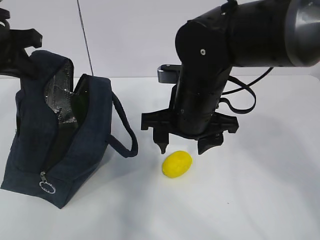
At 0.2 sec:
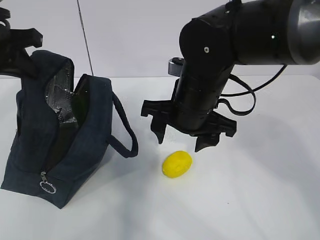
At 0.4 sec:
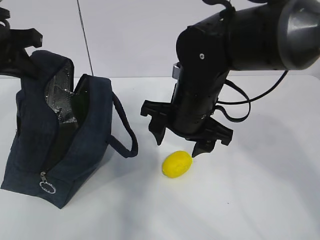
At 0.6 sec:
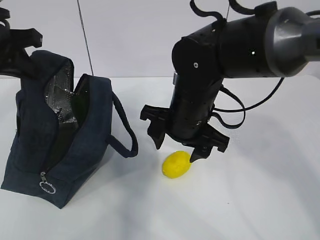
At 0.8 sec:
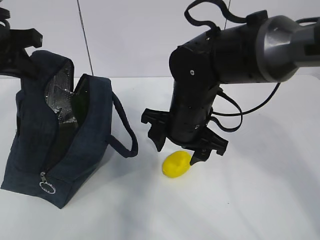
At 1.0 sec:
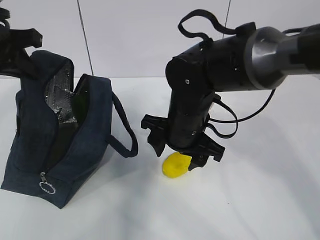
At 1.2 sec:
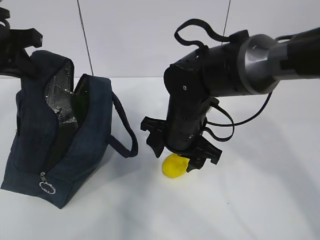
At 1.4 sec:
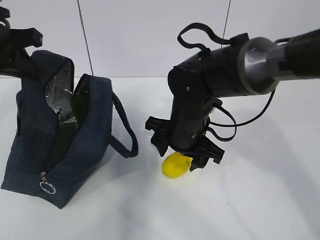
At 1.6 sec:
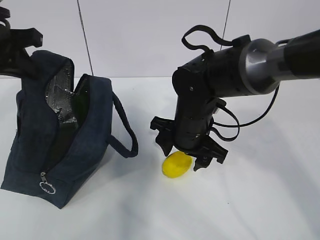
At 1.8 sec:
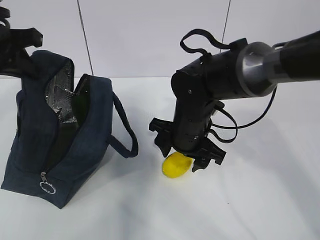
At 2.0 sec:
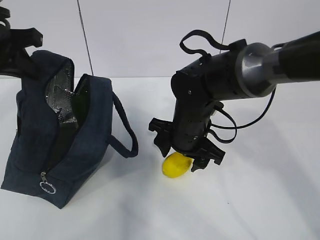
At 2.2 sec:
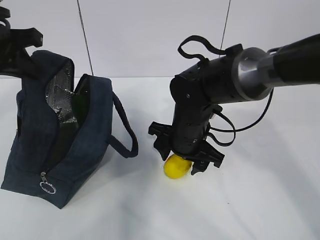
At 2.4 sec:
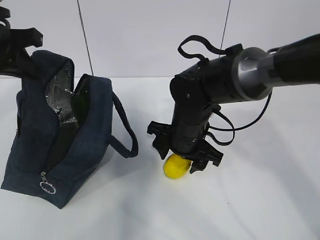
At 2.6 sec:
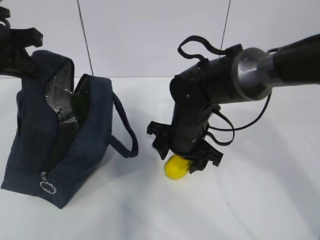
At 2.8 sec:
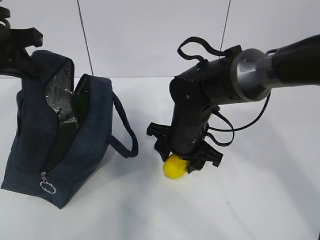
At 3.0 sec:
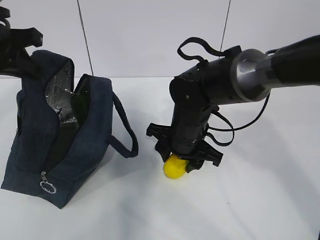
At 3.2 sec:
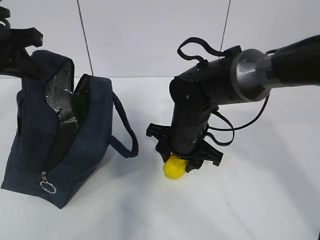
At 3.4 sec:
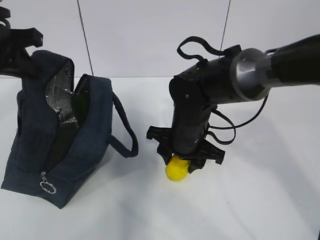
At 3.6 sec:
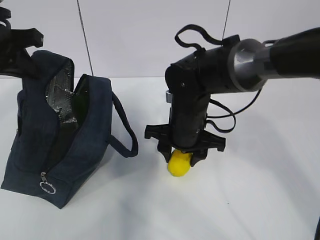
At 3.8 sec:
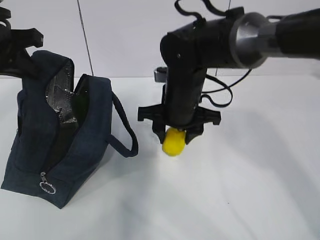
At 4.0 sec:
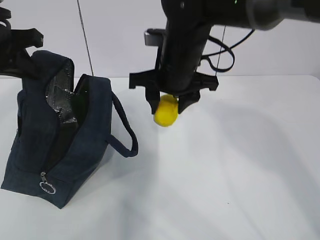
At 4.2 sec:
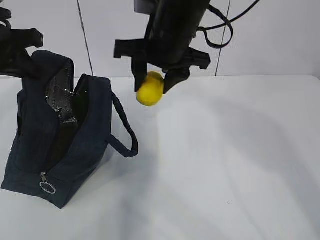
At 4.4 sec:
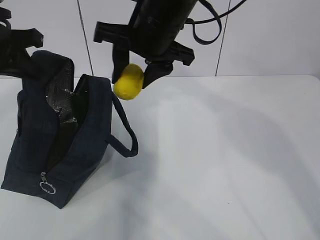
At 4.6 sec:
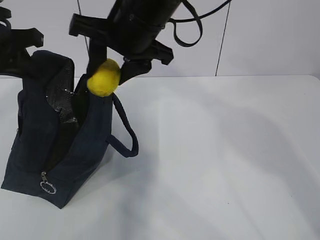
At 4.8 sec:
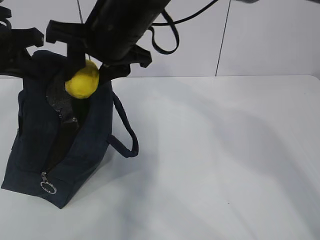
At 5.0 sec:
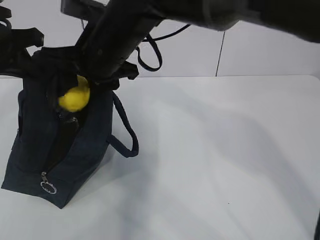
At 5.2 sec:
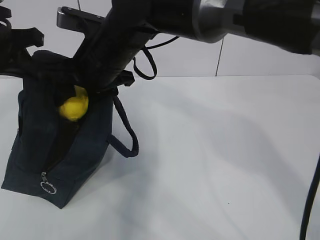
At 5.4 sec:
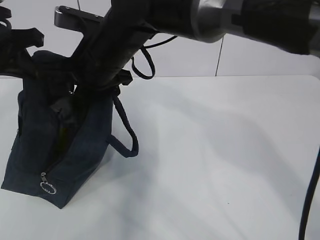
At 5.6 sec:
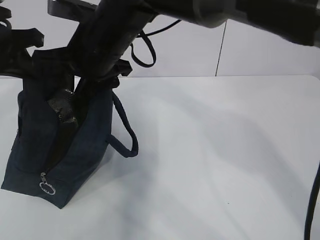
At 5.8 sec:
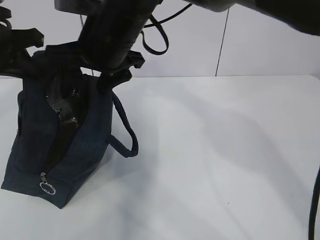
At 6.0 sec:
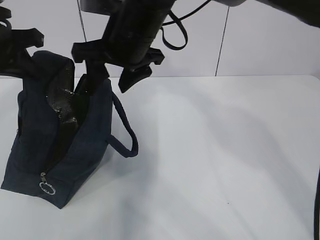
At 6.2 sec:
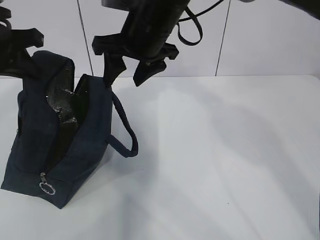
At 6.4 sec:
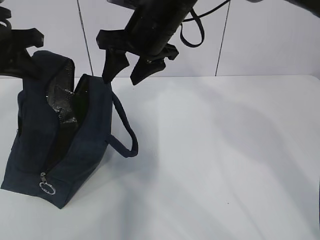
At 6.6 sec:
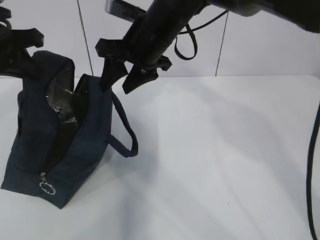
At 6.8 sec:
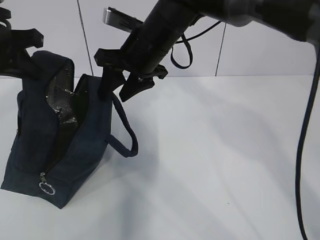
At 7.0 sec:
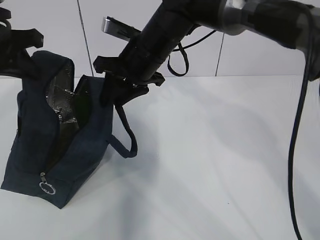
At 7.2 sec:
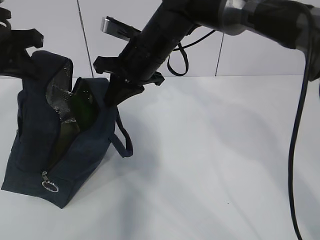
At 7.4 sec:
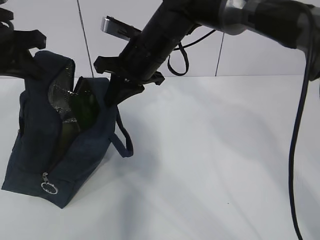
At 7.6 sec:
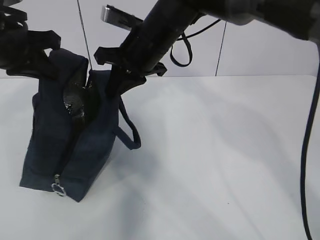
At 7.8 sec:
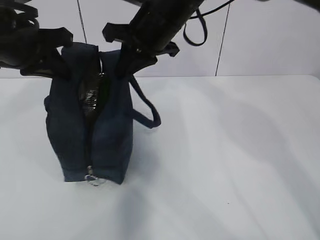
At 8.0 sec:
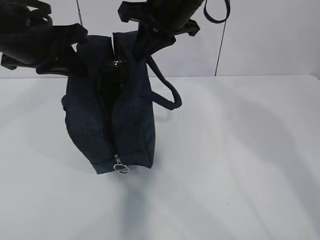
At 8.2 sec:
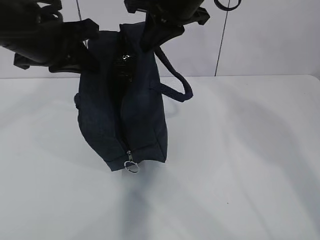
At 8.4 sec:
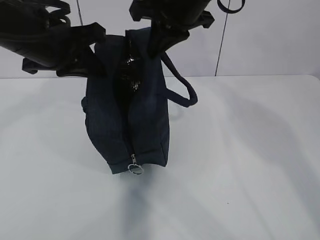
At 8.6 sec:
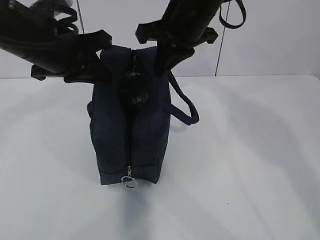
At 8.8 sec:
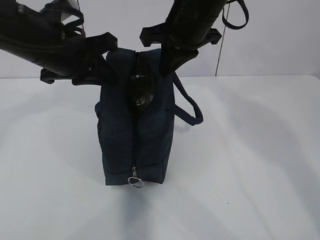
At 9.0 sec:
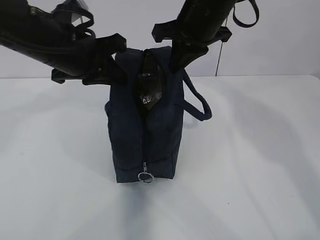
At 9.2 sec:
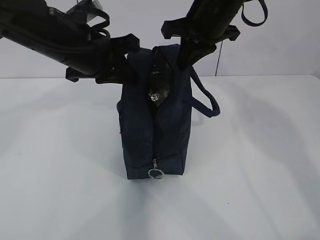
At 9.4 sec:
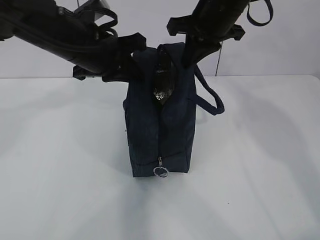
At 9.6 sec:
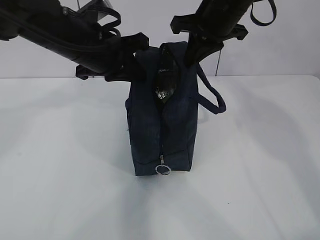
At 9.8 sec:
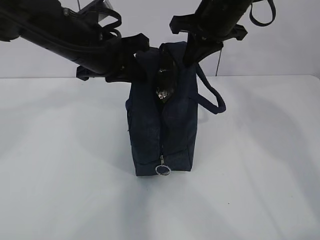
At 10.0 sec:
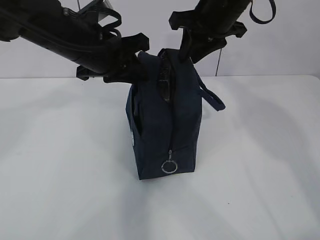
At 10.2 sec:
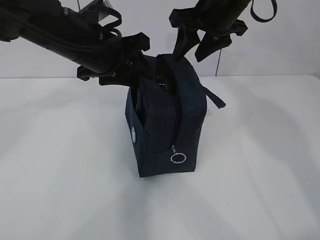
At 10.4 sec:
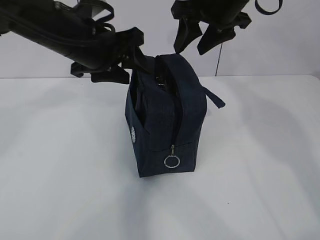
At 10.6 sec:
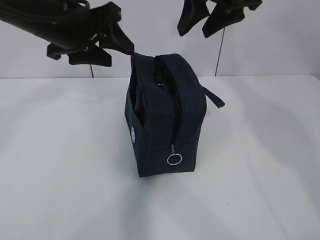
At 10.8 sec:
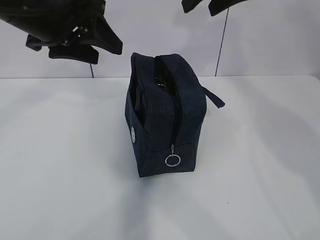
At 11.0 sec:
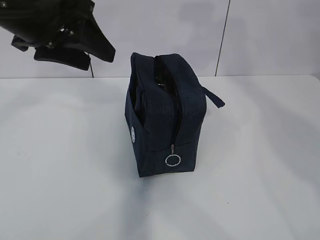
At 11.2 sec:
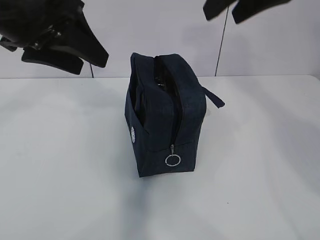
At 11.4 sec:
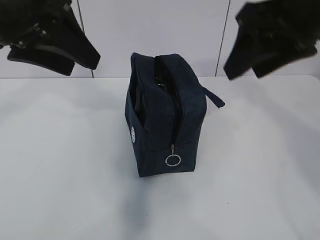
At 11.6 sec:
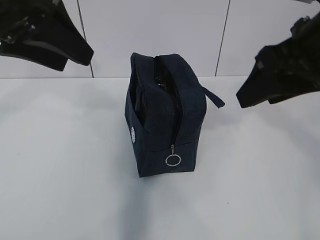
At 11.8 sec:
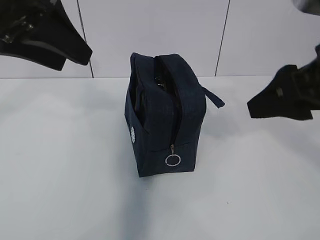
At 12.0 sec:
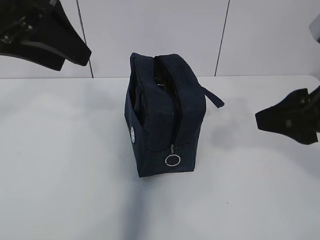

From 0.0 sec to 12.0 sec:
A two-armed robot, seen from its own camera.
Step, from 0.0 sec to 1.6 sec: Move the lunch bag to the right.
From 0.0 sec to 1.6 sec: The right gripper moves downward, some 5 cm.
From 1.6 sec to 3.0 sec: There are only small adjustments of the grippers.
From 3.0 sec to 4.4 sec: The right gripper shifts approximately 20 cm upward.
From 6.0 sec to 7.6 sec: The right gripper shifts by roughly 5 cm, and closes up.
From 7.6 sec to 9.0 sec: The right gripper moves to the right and upward, about 10 cm. Meanwhile the left gripper moves to the right, about 10 cm.
From 9.0 sec to 10.4 sec: The left gripper opens; the right gripper opens up.
From 10.4 sec to 12.0 sec: The right gripper is displaced backward by about 20 cm; the left gripper heads upward, backward and to the left, covering roughly 15 cm.

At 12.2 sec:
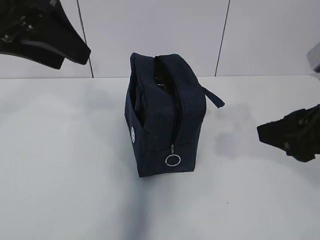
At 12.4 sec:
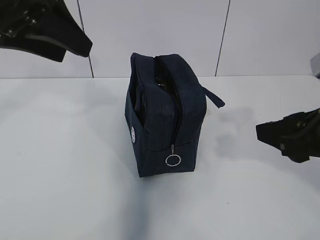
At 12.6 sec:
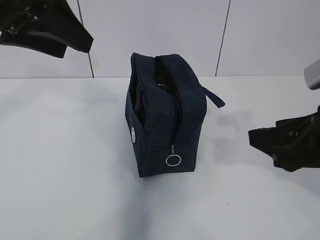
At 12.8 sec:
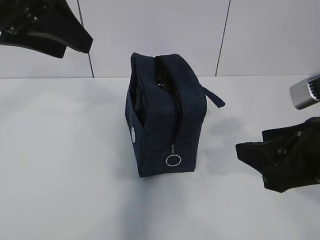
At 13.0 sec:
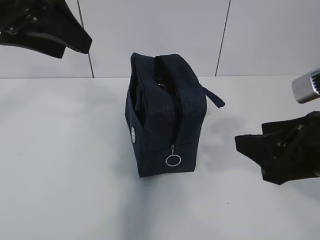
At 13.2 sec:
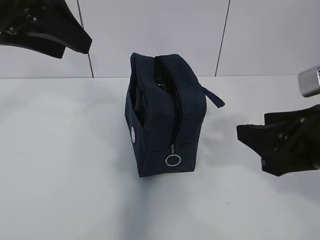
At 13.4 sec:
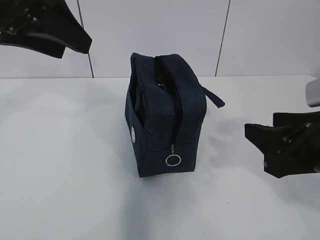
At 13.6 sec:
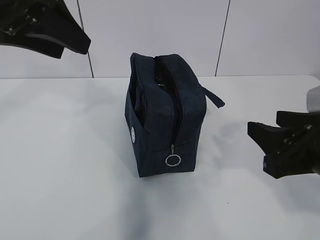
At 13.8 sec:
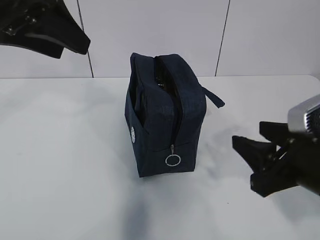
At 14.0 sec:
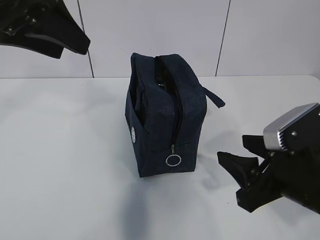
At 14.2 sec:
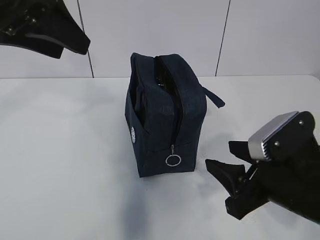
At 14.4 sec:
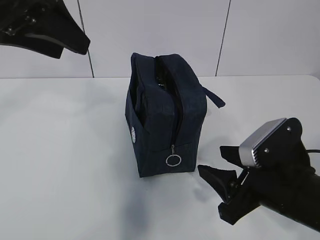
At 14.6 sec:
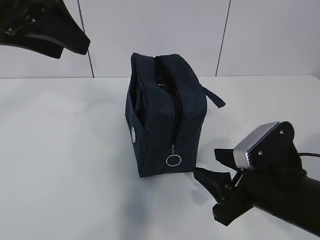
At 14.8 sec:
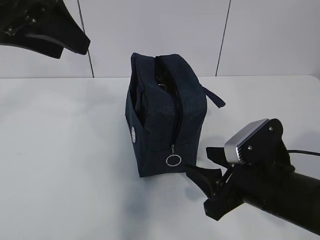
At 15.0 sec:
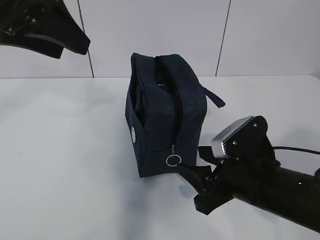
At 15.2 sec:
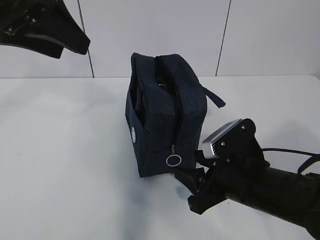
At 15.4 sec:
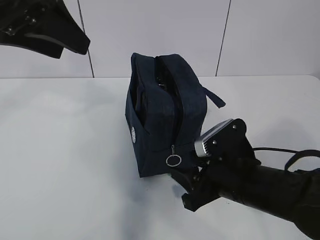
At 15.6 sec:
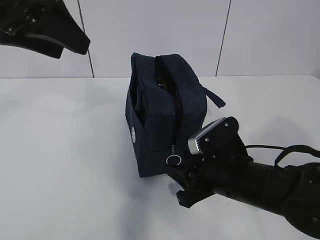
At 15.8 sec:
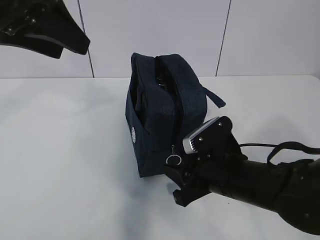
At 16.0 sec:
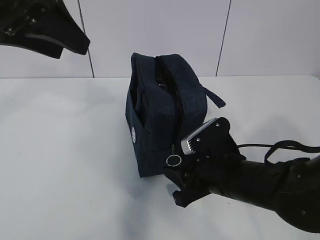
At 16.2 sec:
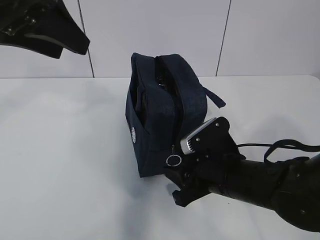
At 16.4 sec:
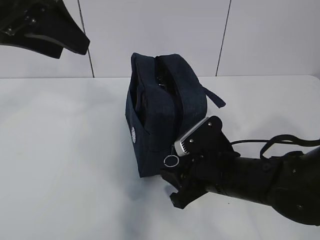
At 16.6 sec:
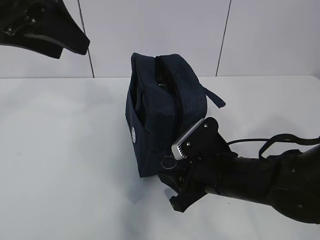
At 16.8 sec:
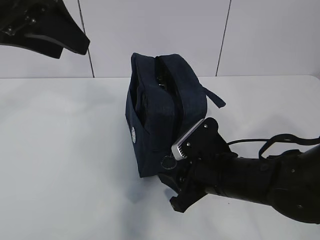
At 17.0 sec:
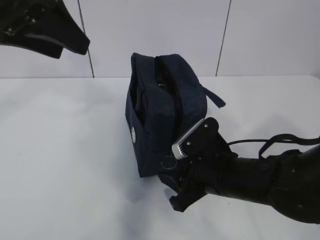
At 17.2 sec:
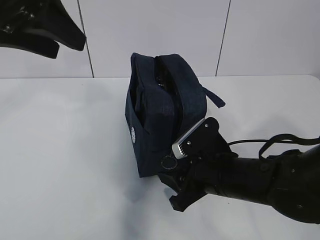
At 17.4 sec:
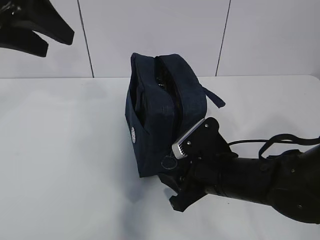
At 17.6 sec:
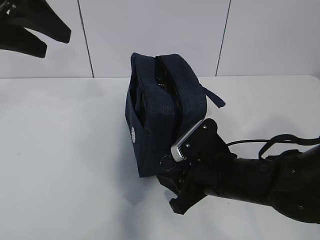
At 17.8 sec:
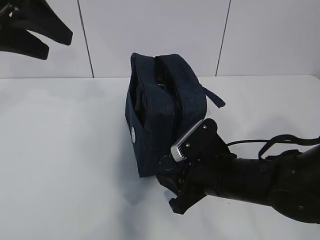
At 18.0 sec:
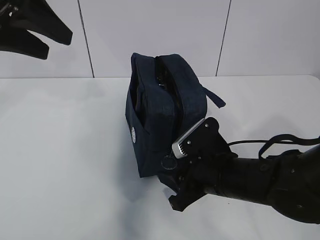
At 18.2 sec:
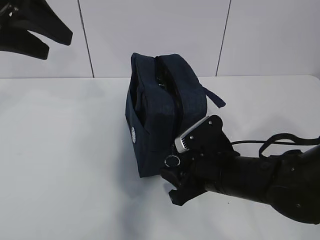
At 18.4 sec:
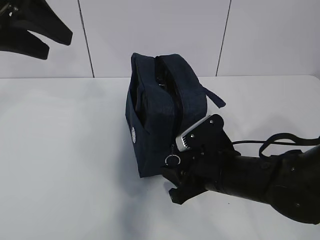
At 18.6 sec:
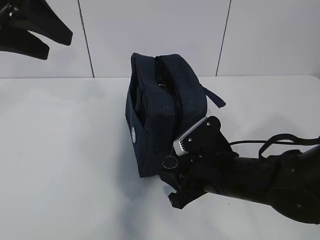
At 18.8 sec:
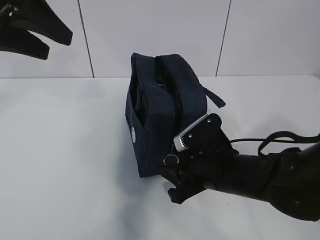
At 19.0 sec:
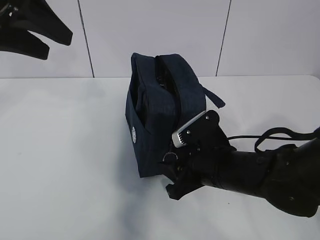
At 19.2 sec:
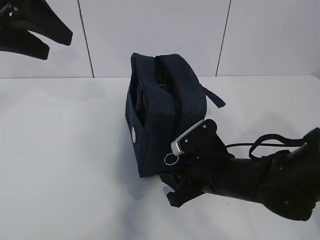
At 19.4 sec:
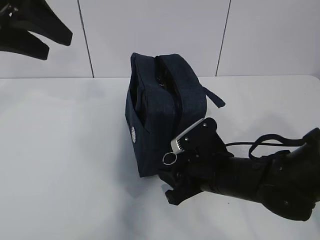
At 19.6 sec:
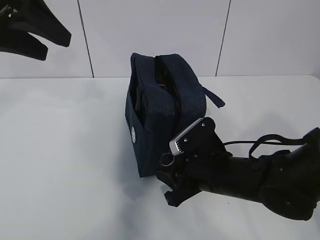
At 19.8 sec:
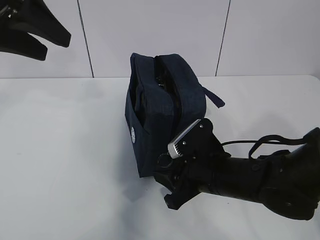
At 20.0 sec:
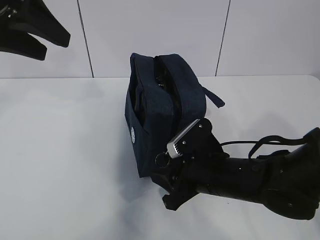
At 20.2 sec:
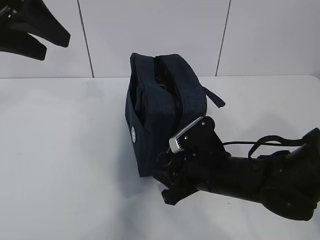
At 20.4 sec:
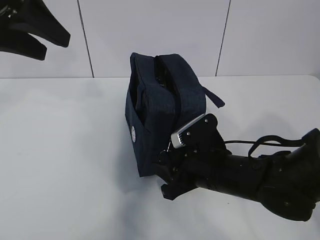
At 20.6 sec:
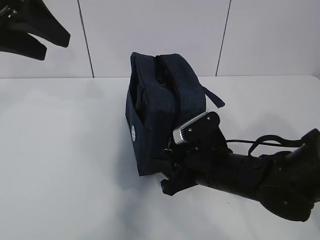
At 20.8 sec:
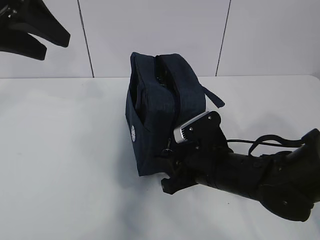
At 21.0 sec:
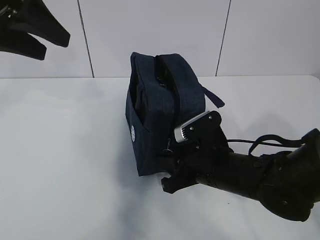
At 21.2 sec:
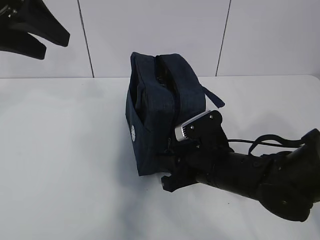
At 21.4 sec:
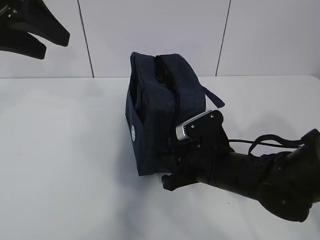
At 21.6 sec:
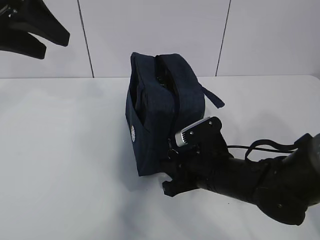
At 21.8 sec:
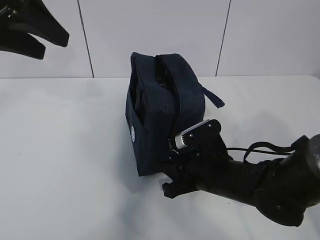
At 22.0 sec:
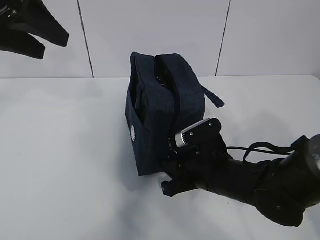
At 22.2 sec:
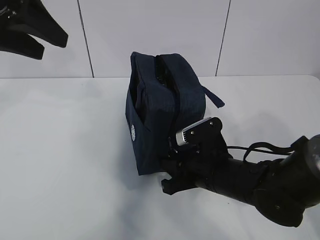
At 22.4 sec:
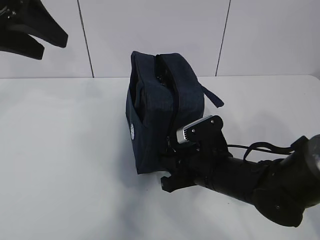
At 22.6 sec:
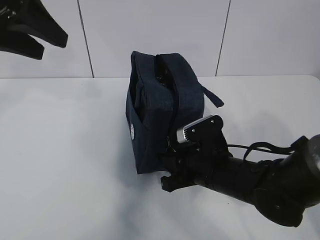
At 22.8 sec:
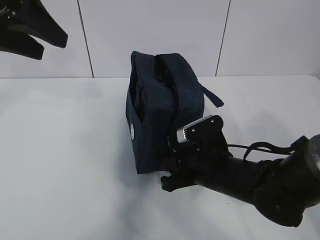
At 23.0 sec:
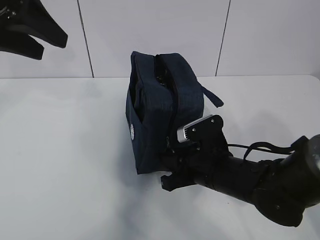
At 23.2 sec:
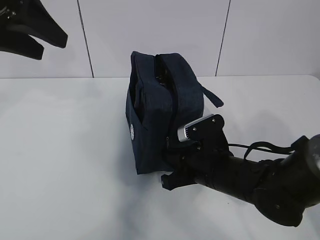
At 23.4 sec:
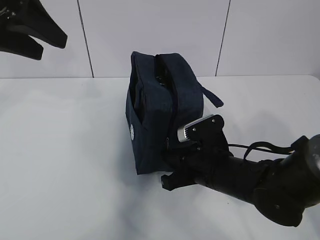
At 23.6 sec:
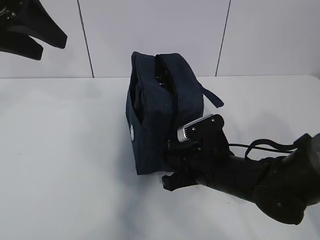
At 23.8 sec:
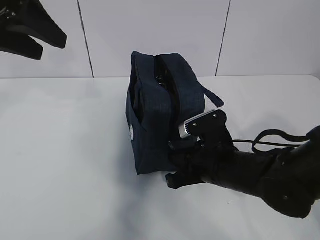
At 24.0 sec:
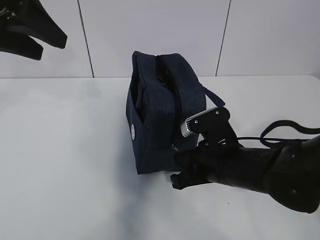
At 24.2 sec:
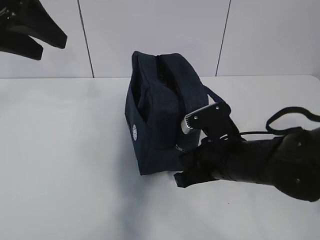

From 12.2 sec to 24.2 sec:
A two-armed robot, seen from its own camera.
Step, from 12.2 sec to 22.6 sec: Pull the zipper with your right hand.
From 12.2 sec to 13.8 sec: The right gripper shifts about 5 cm downward.
From 13.8 sec to 15.2 sec: The right gripper shifts approximately 10 cm downward and to the left.
From 15.2 sec to 21.2 sec: The grippers move only a little.
From 21.2 sec to 22.6 sec: There are only small adjustments of the grippers.
From 22.6 sec to 24.2 sec: The right gripper closes.
